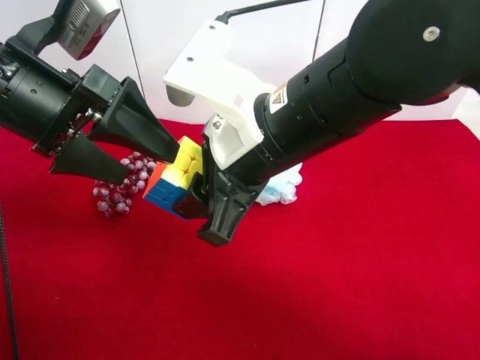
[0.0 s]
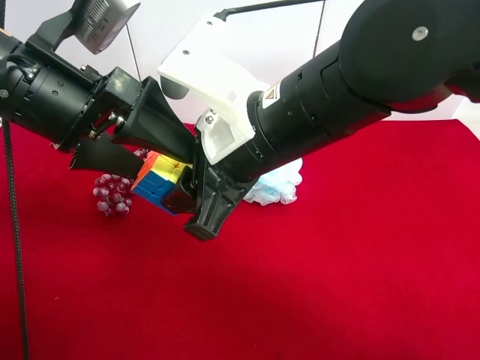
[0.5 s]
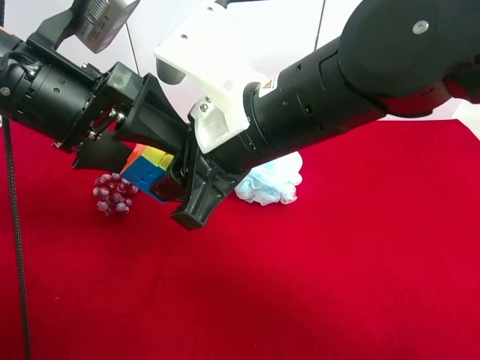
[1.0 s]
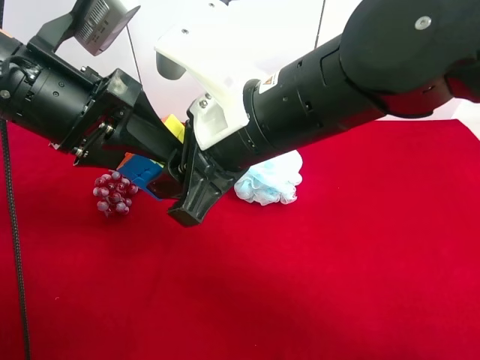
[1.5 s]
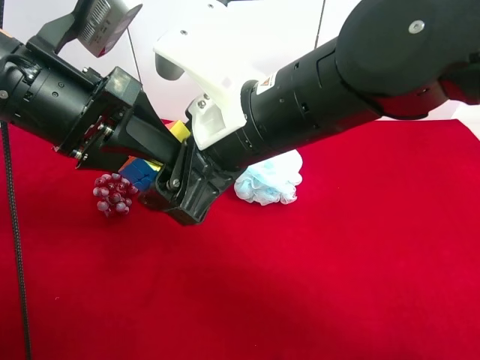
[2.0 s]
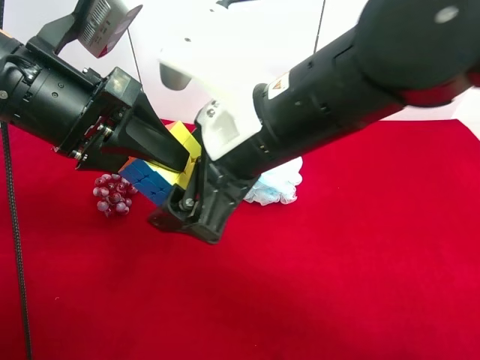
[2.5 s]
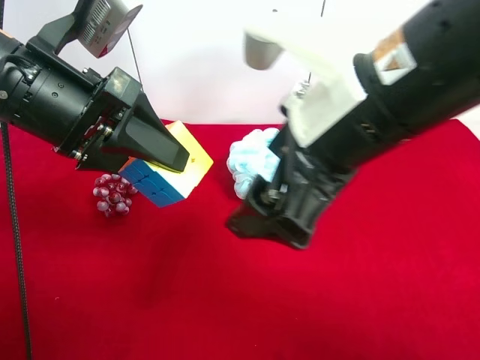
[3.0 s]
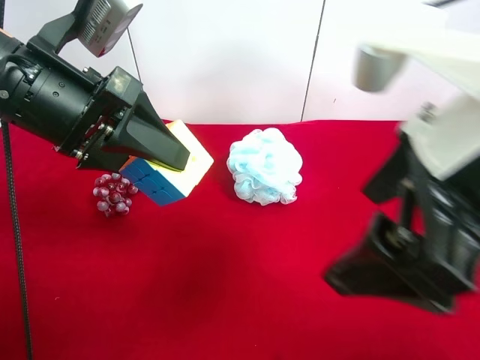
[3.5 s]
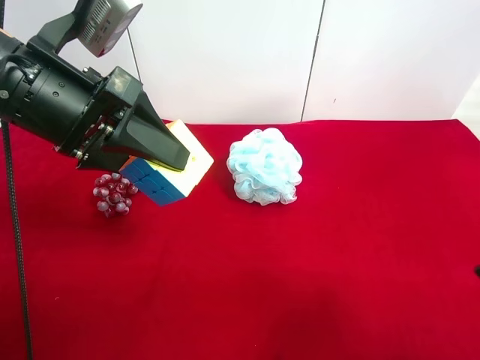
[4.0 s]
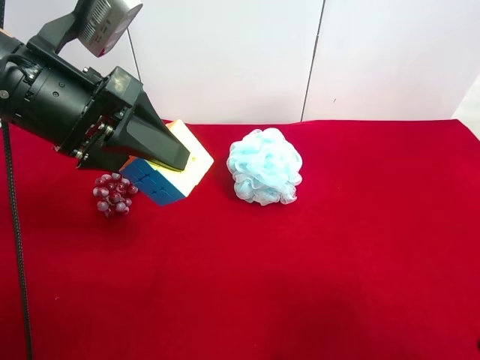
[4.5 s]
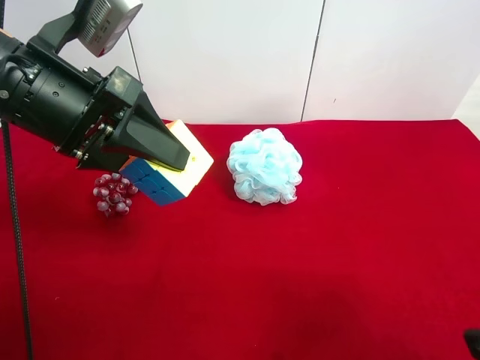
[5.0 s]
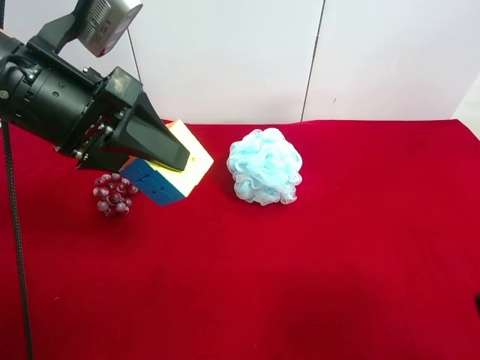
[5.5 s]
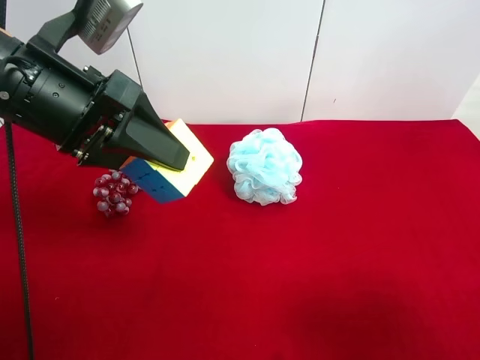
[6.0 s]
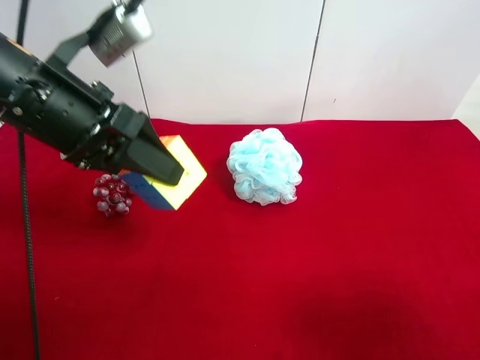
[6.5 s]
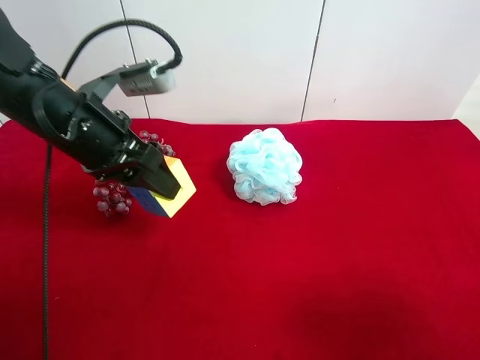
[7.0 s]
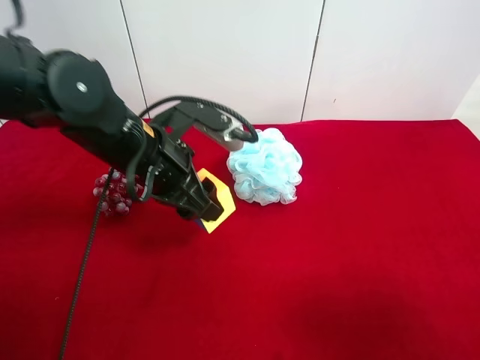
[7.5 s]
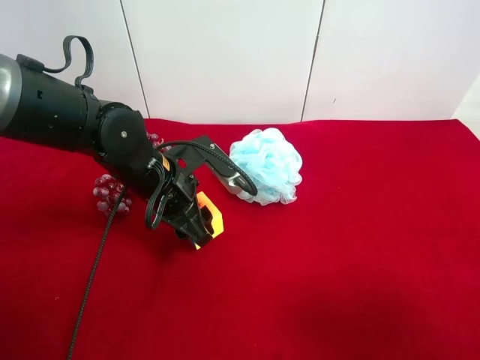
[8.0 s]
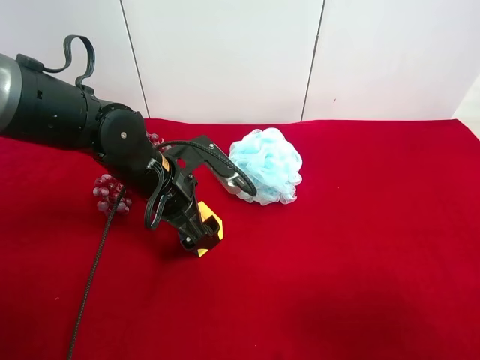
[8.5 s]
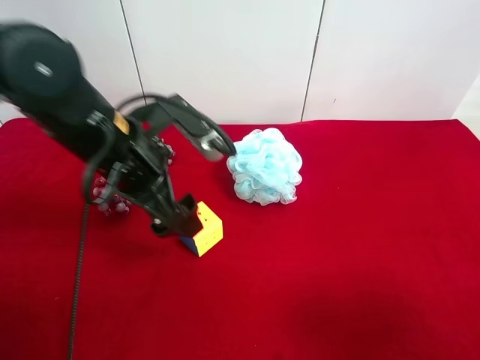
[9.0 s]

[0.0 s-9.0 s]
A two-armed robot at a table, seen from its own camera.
Task of the whole recording: use the right gripper to pick up the item and transfer it from the right gripper to the left gripper.
Step, 0.0 to 2.0 s: Pass the Rubik's Cube to the left gripper.
Step, 2.5 to 8.0 s: The left gripper places Rubik's Cube on the left side of the table.
0.0 to 2.0 s: The left gripper closes, while the right gripper opens its fingers.
2.0 to 4.5 s: The right gripper goes approximately 30 cm to the right and backward.
4.5 to 7.0 s: The left gripper goes about 5 cm downward.
7.0 to 9.0 s: The left gripper goes downward and returns, some 10 cm each way, and opens.

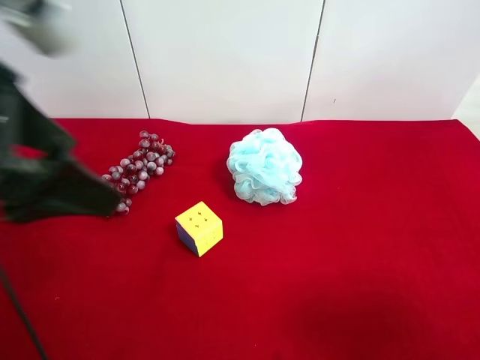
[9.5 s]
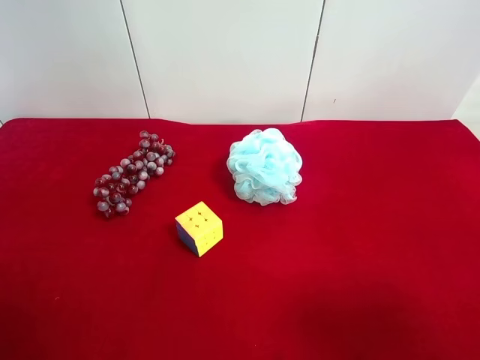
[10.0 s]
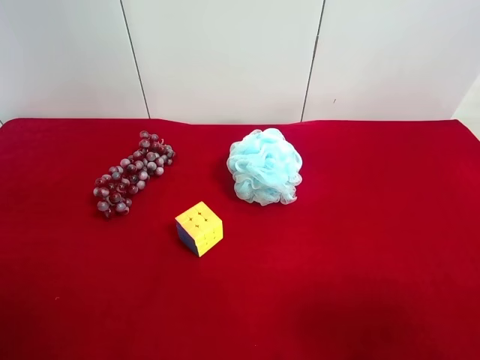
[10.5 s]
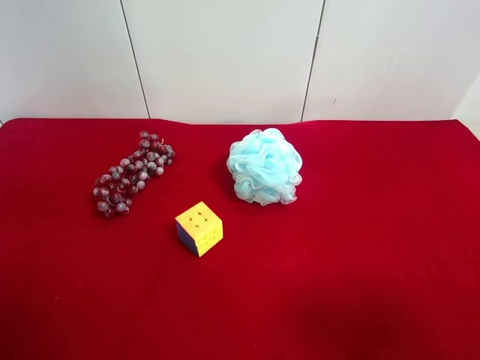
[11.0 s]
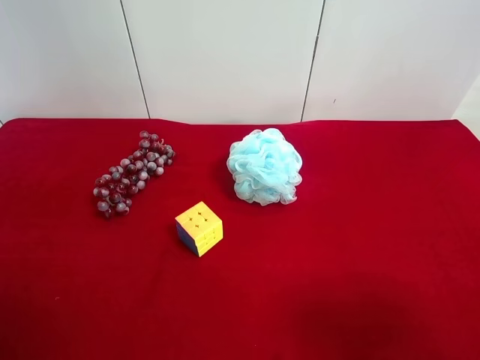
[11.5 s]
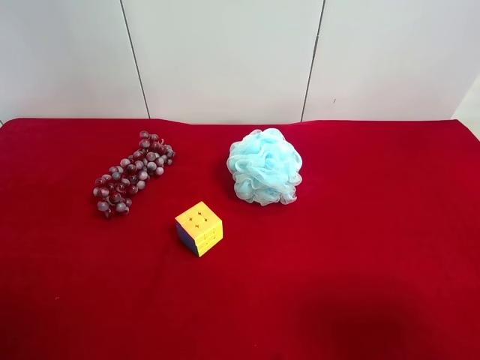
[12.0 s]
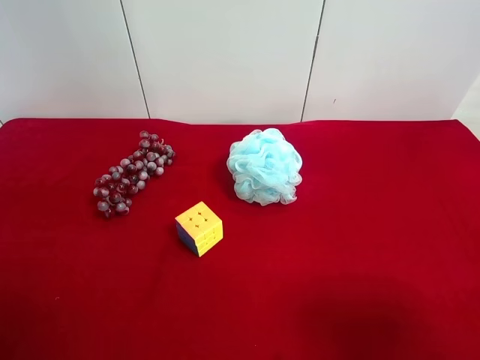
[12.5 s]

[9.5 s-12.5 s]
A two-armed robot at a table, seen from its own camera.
Task of the whole recording: use the right gripper to pick up the item and transfer it from the right gripper to the left gripper.
9.5 to 11.0 s: The left gripper heads backward, to the left and downward, covering some 20 cm.

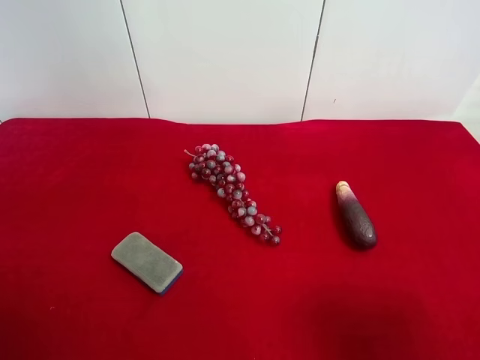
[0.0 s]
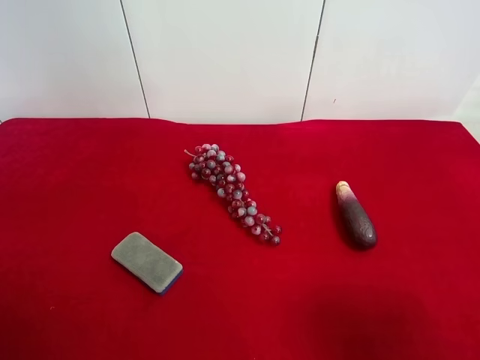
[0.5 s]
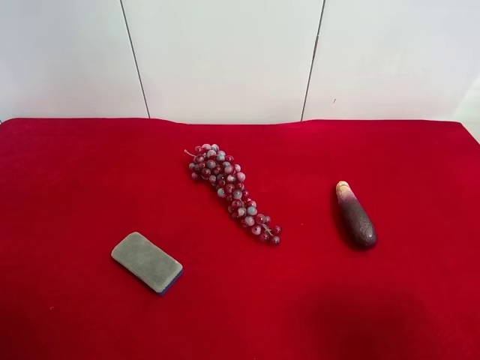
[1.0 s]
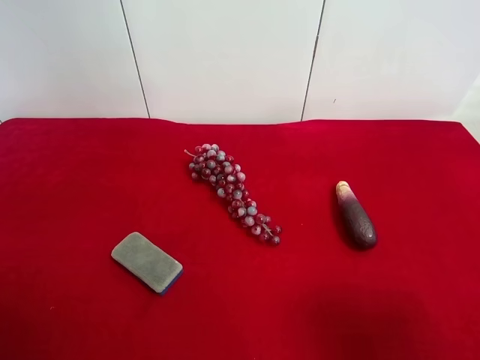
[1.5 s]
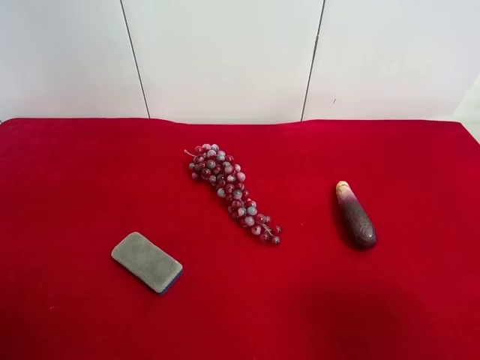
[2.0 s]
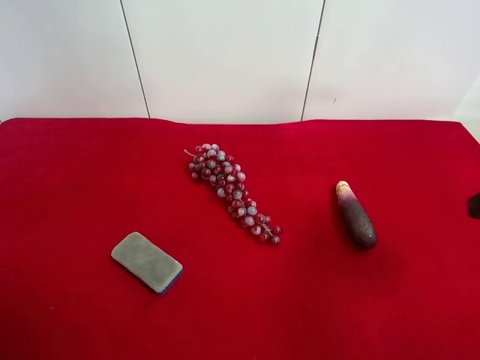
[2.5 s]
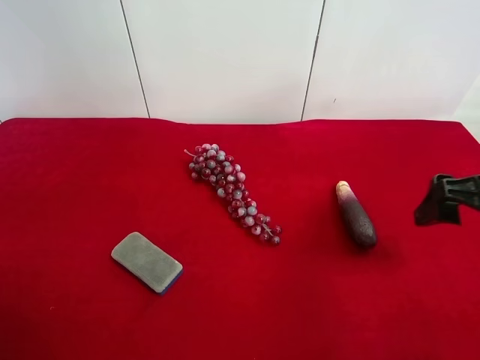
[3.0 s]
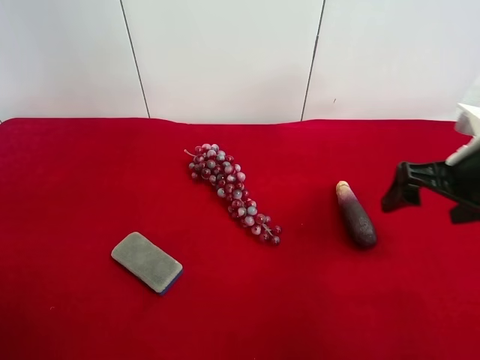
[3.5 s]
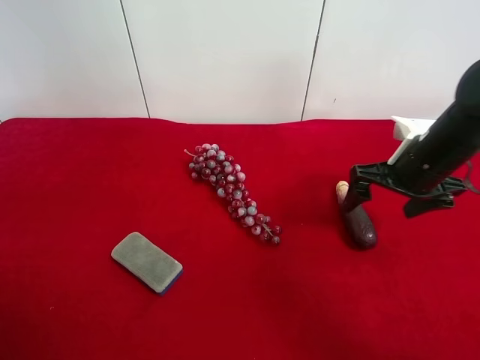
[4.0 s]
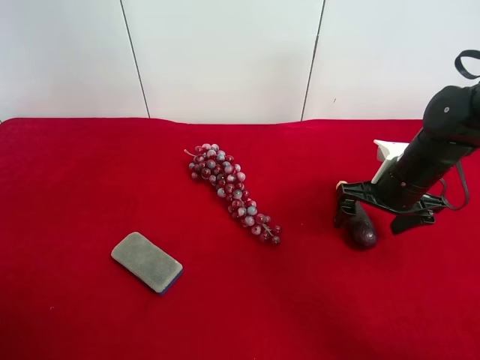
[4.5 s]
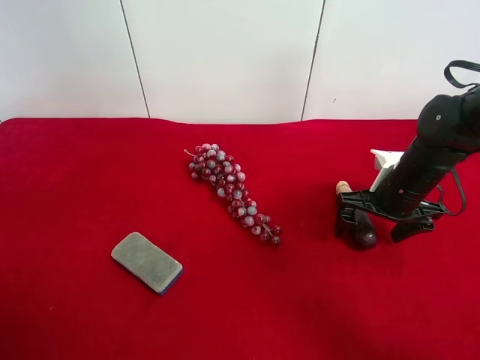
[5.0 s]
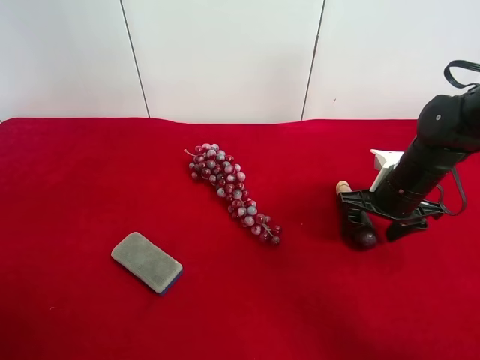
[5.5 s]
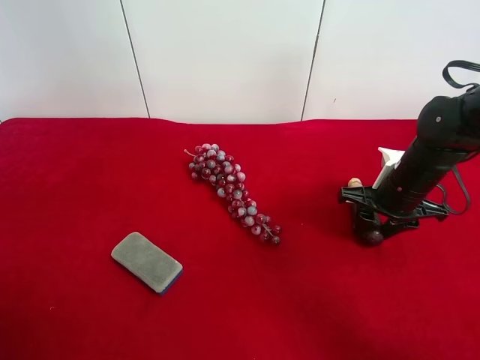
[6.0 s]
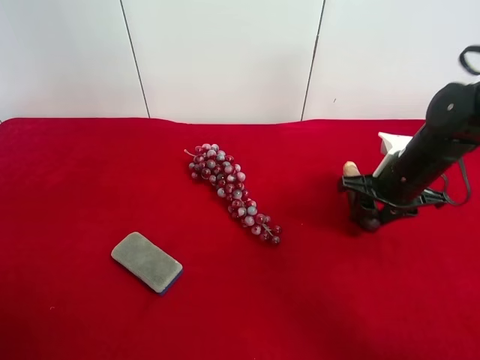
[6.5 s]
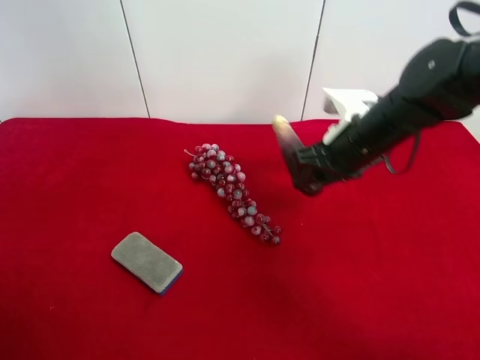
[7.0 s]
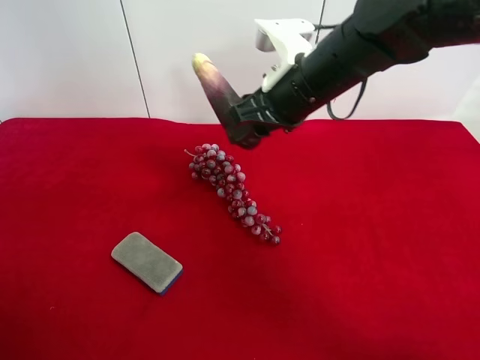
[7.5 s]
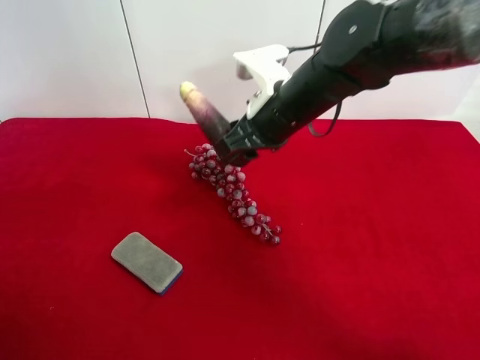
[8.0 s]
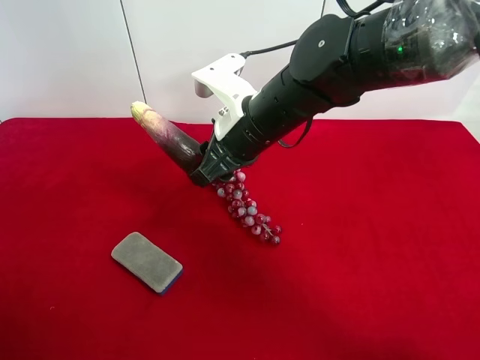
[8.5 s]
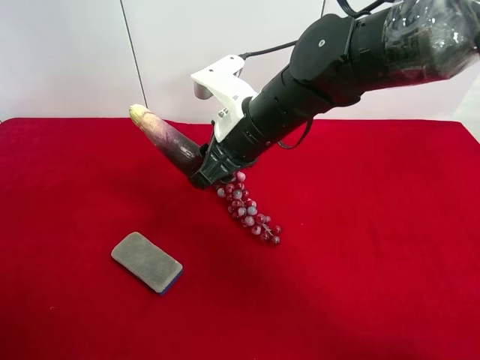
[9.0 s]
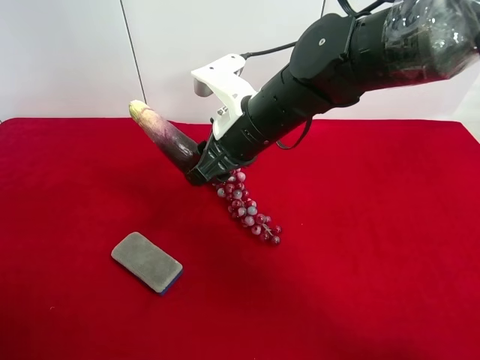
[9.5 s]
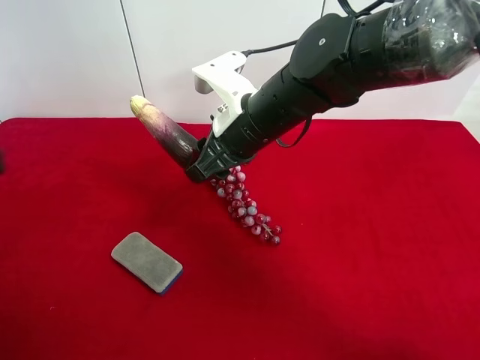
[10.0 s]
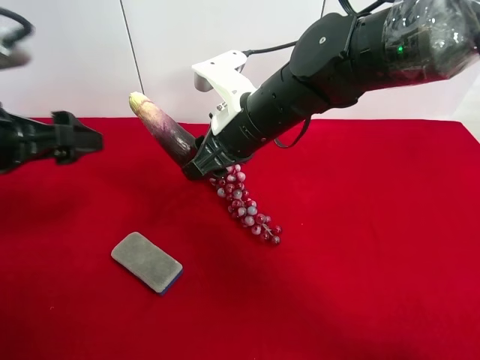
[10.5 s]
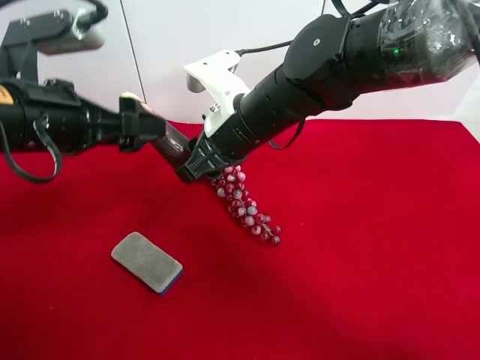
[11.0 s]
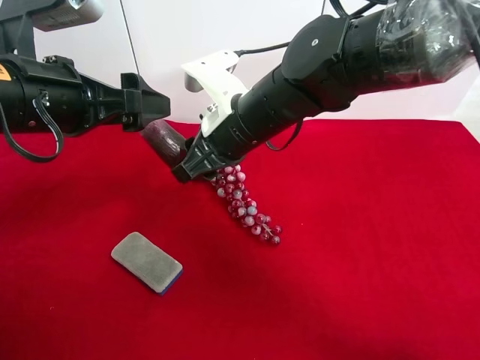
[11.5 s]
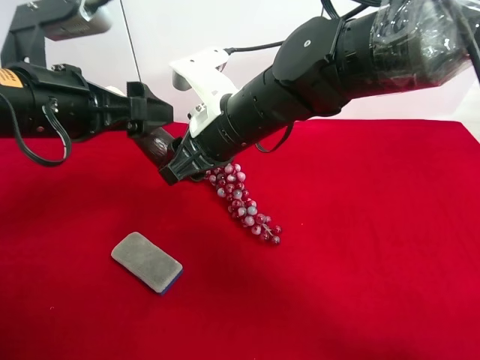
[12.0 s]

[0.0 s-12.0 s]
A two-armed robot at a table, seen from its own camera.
Task of the whole recording: use the right gripper to pick up the item and transfer it from the right gripper to the left gripper.
Step, 0.0 to 5.5 s: Use the right gripper to grab the eggplant on the right side of the table.
2.0 to 4.0 s: The right gripper travels forward and downward by approximately 30 cm.
4.0 to 6.0 s: The right gripper ends up some 5 cm from where it was, and closes.
6.0 to 8.0 s: The right gripper heads to the left and upward, covering roughly 20 cm.
8.0 to 10.0 s: The left gripper moves forward, roughly 10 cm.
10.0 to 12.0 s: The left gripper goes some 15 cm forward and to the right.

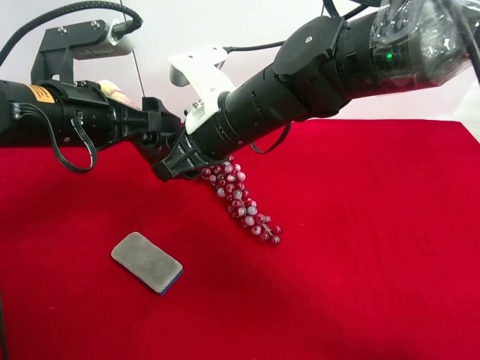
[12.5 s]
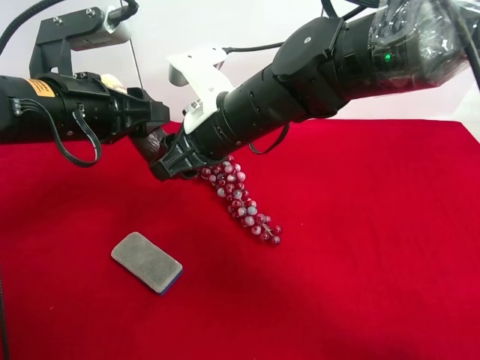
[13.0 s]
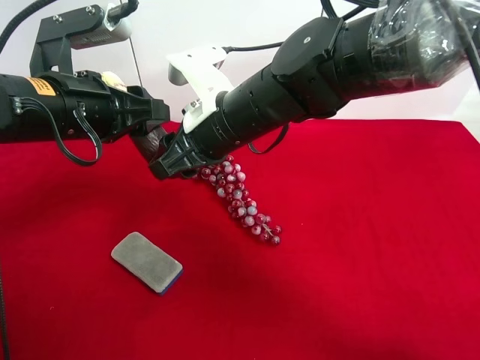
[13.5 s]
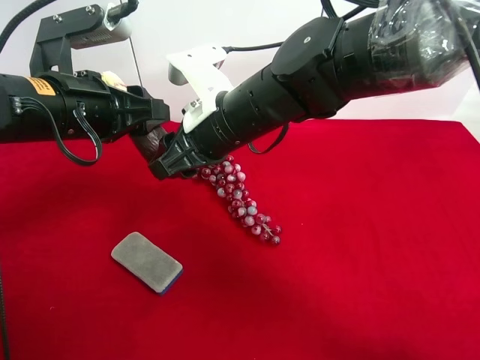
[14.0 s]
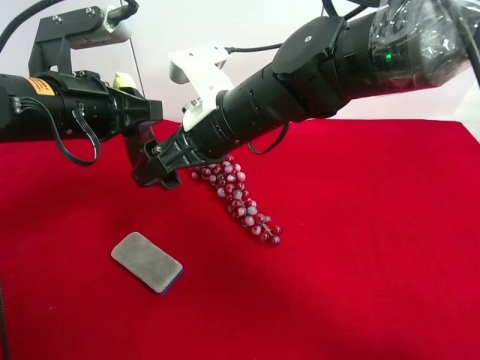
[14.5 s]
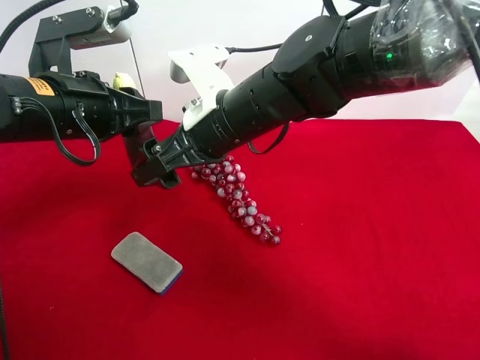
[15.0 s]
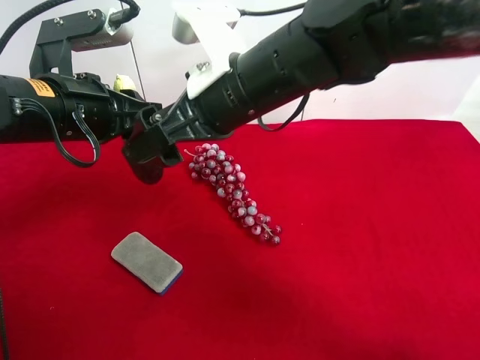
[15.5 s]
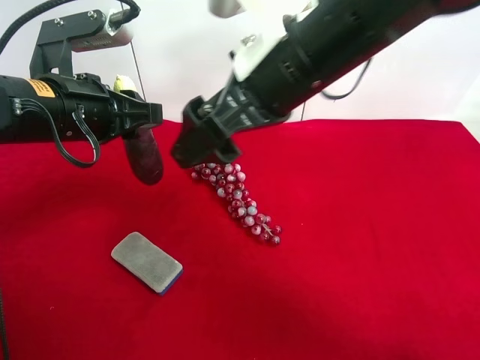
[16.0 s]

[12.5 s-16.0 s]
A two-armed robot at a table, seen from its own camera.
Task of the whole recording: use the right gripper to pick up the item and transfer it from the right gripper to the left gripper.
12.5 to 14.5 s: The right gripper opens. The left gripper closes.
14.5 to 16.0 s: The right gripper travels upward, backward and to the right by about 10 cm.
